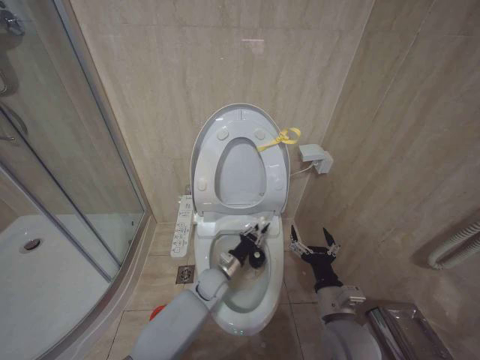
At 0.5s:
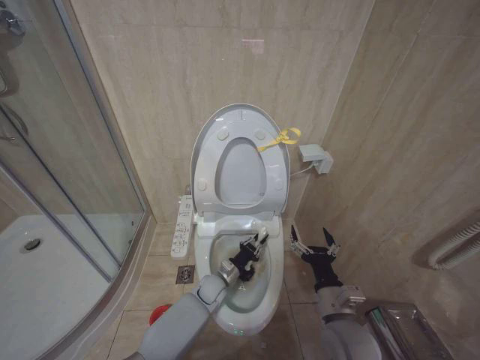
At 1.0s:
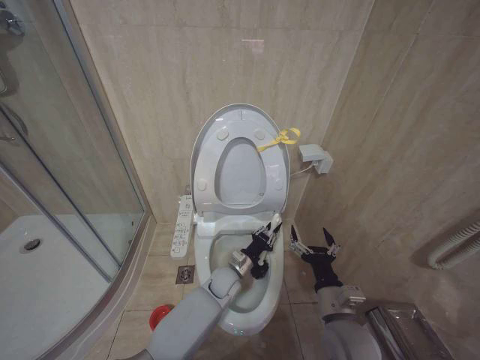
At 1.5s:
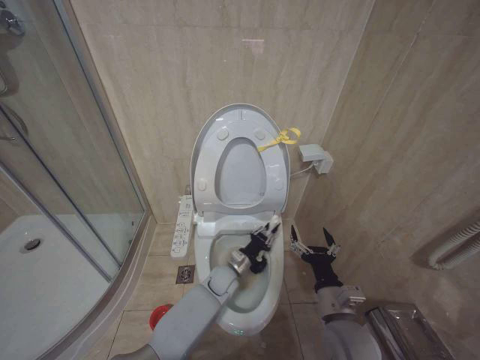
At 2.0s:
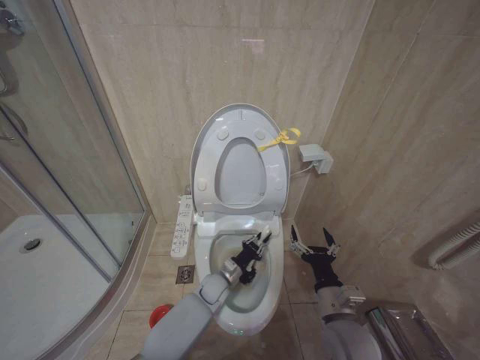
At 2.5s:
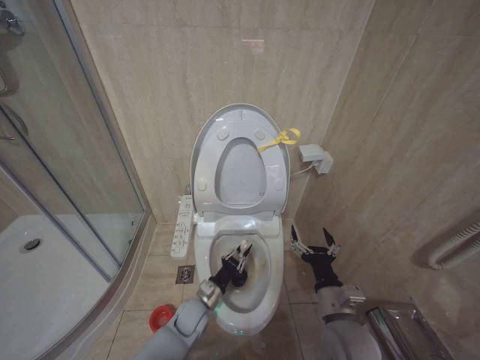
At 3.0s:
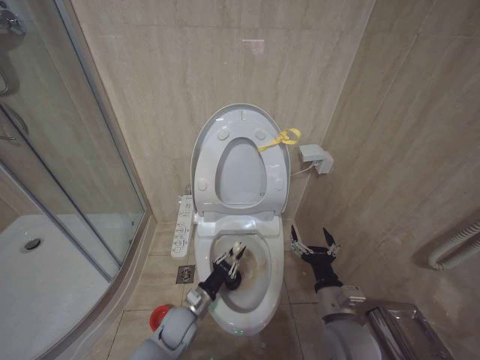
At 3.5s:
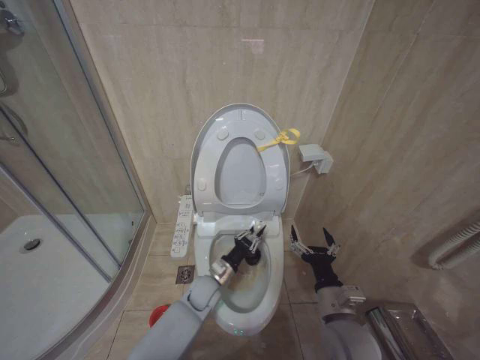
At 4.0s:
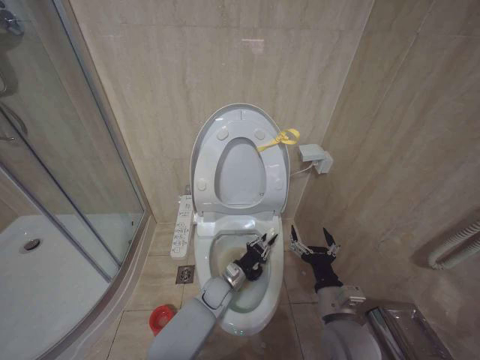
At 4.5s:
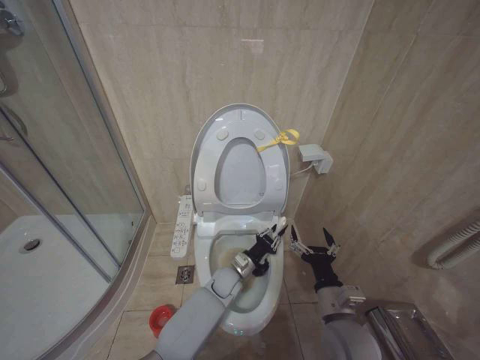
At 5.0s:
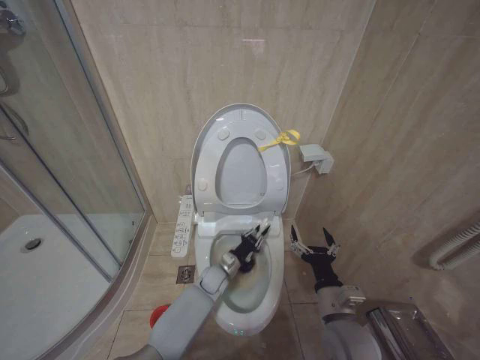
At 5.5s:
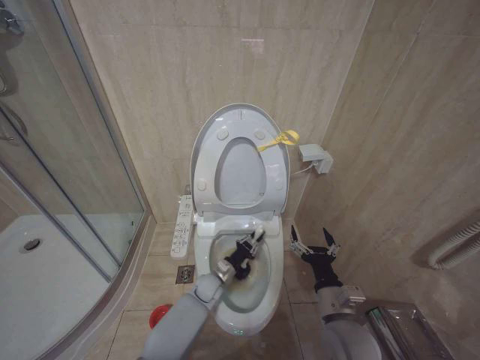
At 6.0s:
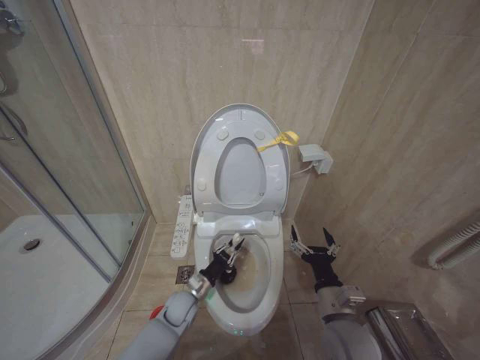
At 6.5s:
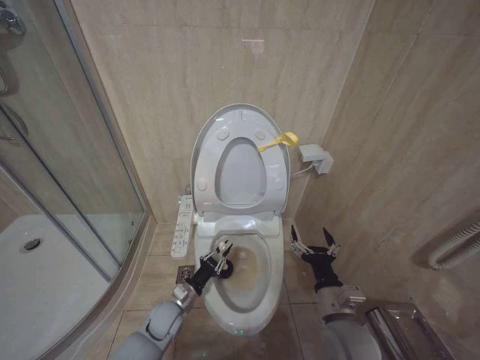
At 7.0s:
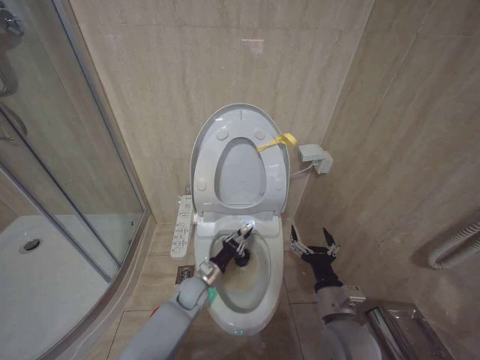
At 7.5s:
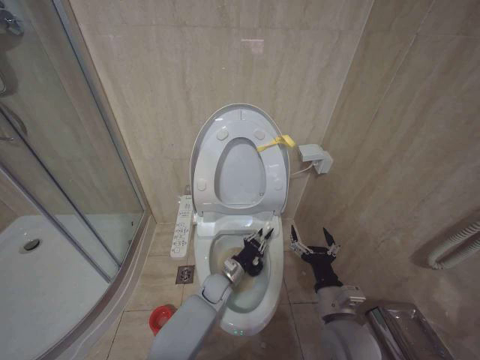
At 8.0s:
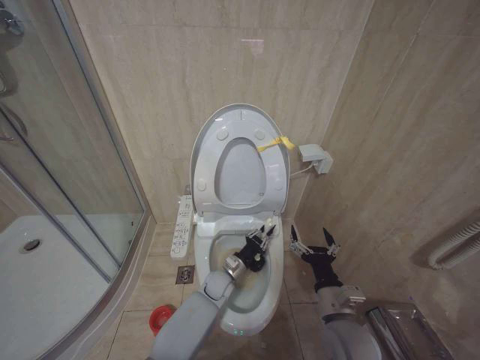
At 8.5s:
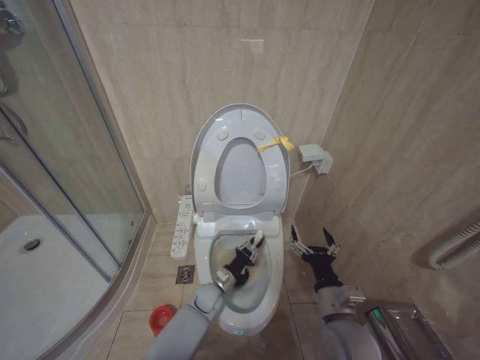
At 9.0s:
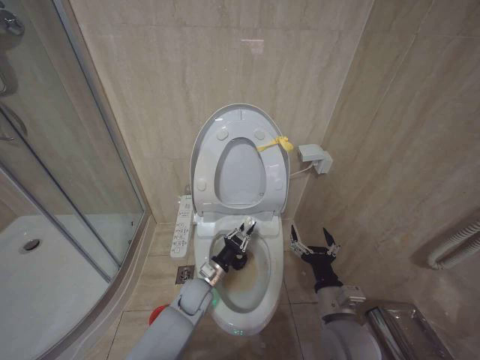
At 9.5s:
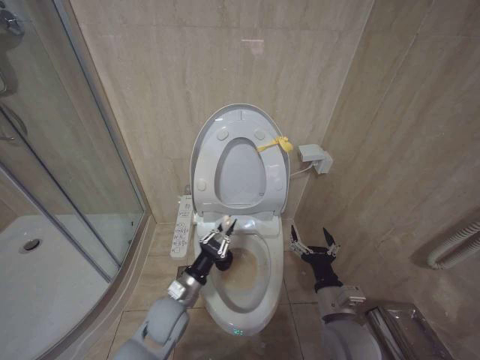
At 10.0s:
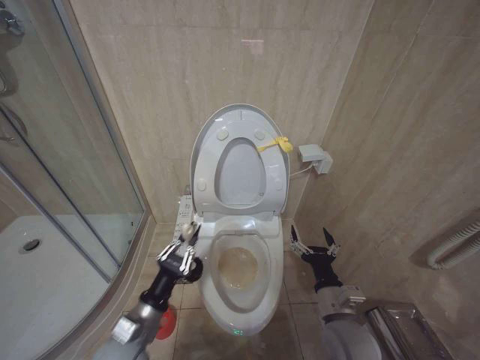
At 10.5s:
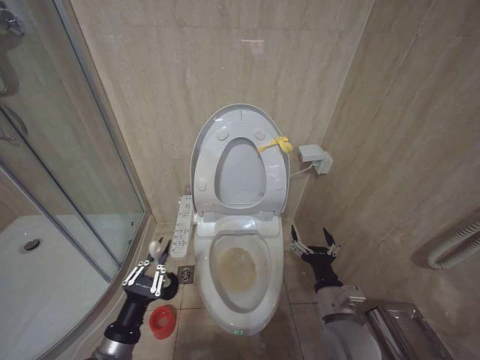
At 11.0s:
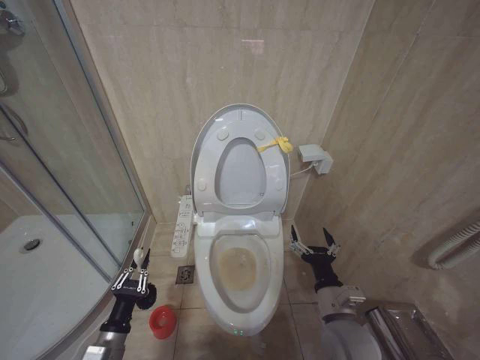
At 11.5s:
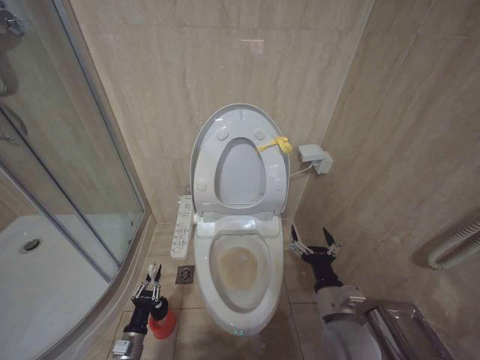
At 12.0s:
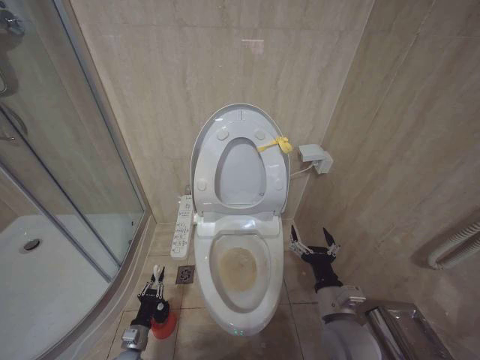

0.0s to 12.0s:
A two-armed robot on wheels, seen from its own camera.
Task of the whole recording: Open the toilet lid, clean the toilet bowl with a toilet brush, close the toilet lid, and flush.
0.0s to 2.0s: The grippers make only small movements.
2.0s to 4.0s: The left gripper goes to the left and returns, approximately 10 cm each way.
4.0s to 6.0s: The left gripper moves to the left, approximately 10 cm.
6.0s to 8.0s: The left gripper shifts about 10 cm to the right.
8.0s to 10.0s: The left gripper goes about 30 cm backward, to the left and upward.
10.0s to 12.0s: The left gripper heads downward, covering some 25 cm.

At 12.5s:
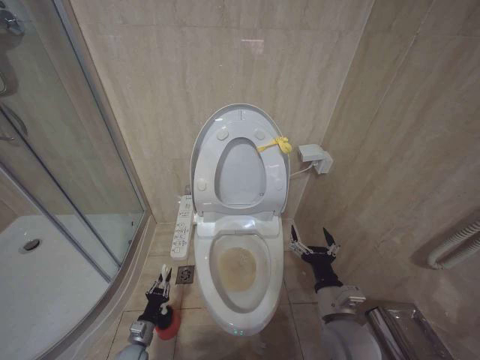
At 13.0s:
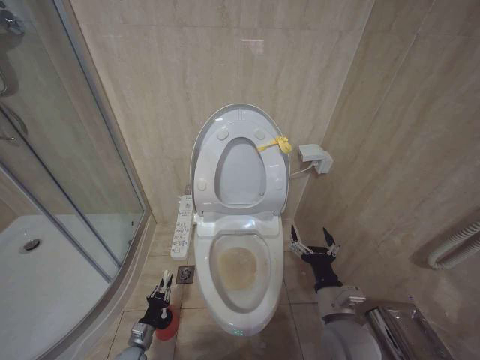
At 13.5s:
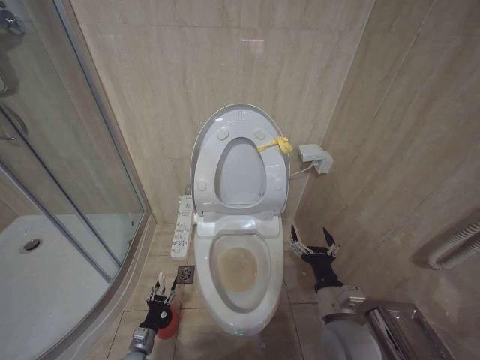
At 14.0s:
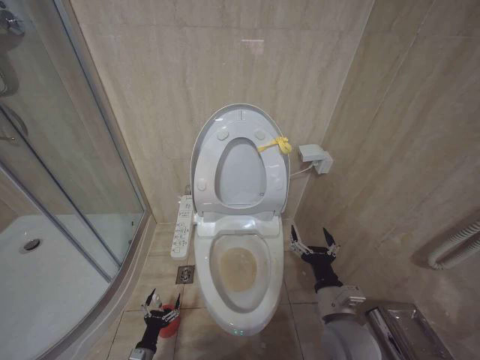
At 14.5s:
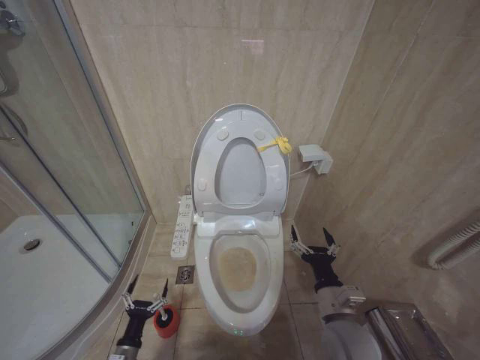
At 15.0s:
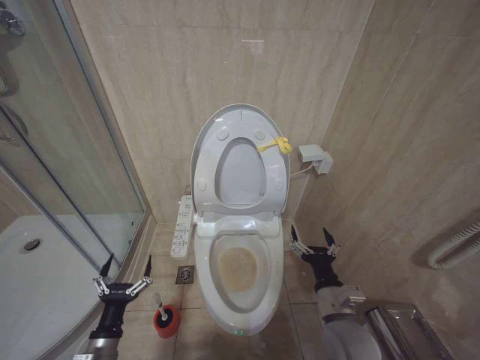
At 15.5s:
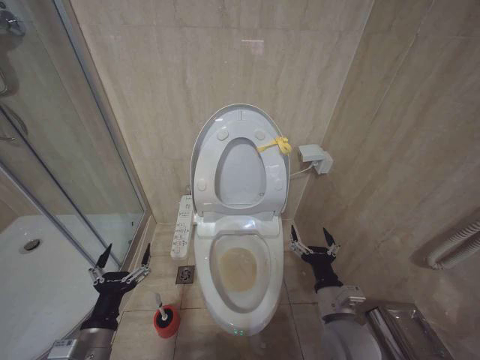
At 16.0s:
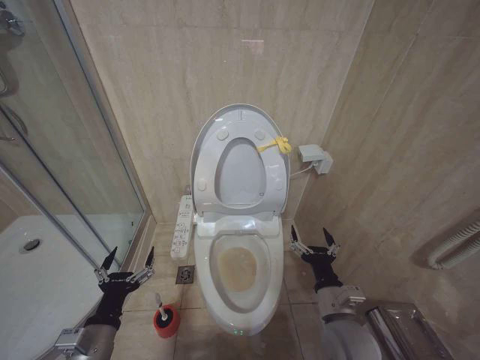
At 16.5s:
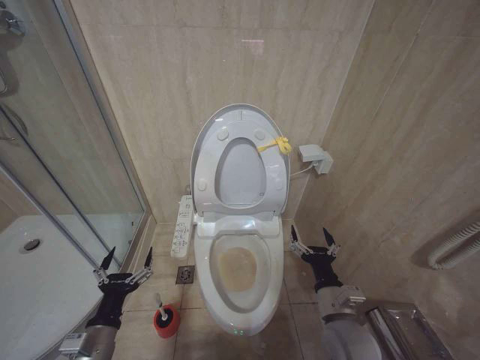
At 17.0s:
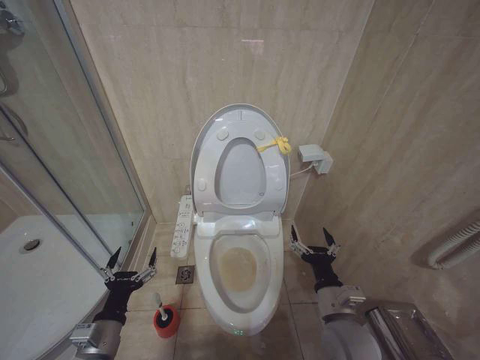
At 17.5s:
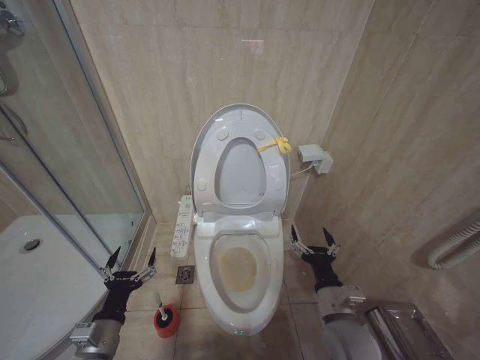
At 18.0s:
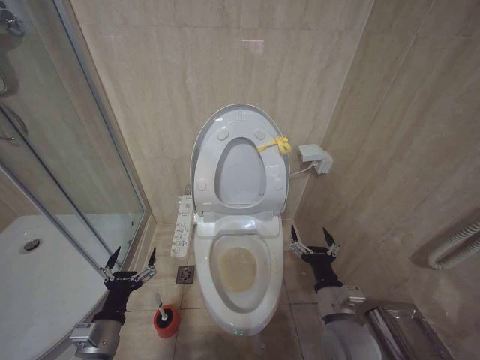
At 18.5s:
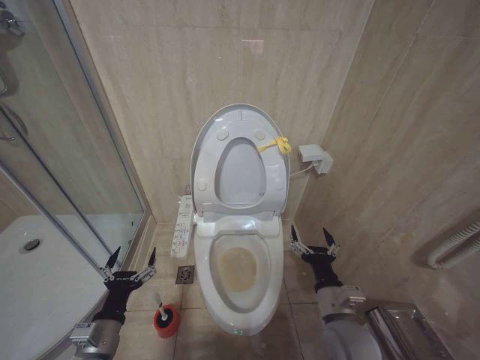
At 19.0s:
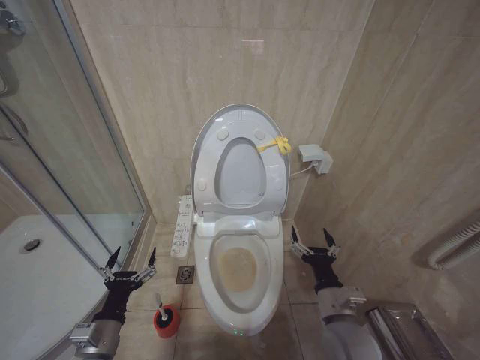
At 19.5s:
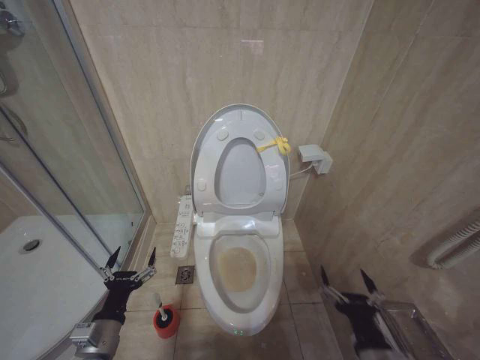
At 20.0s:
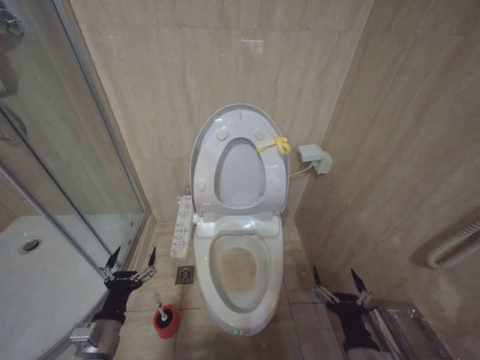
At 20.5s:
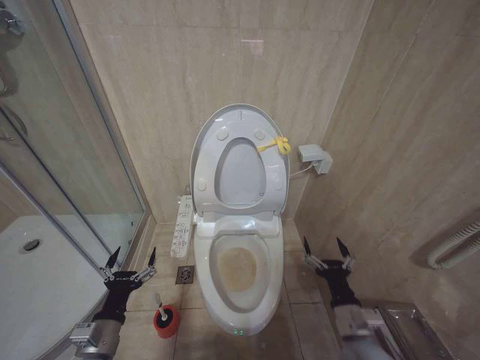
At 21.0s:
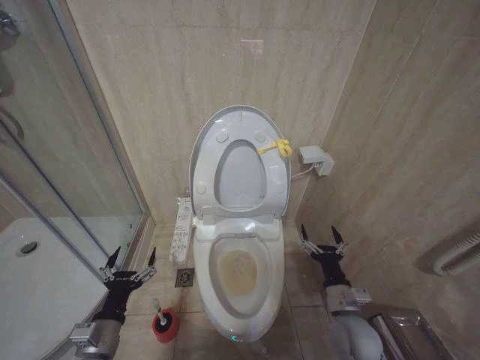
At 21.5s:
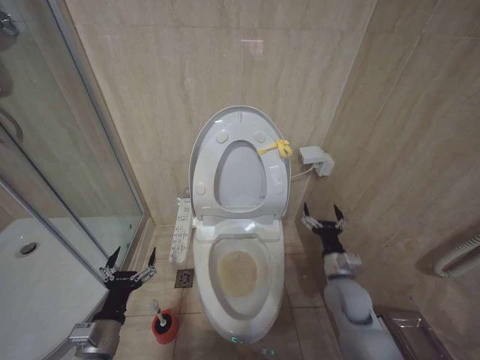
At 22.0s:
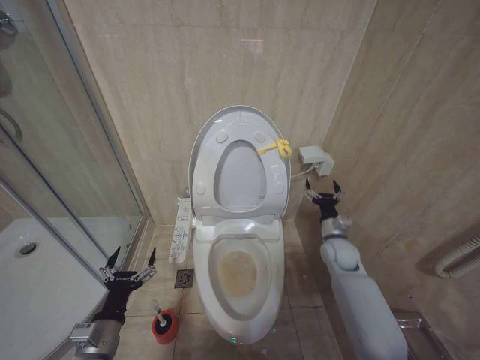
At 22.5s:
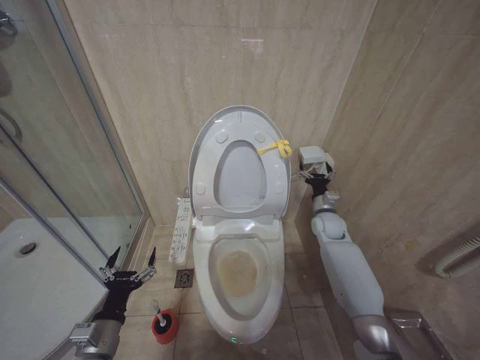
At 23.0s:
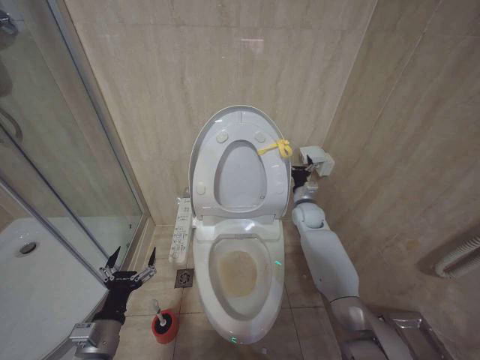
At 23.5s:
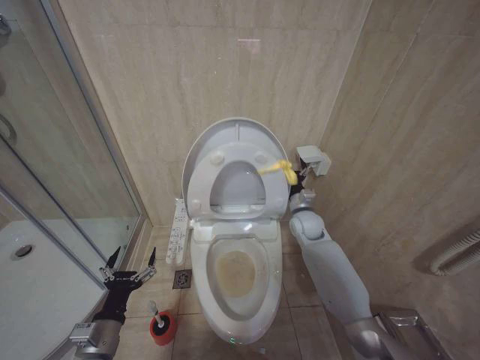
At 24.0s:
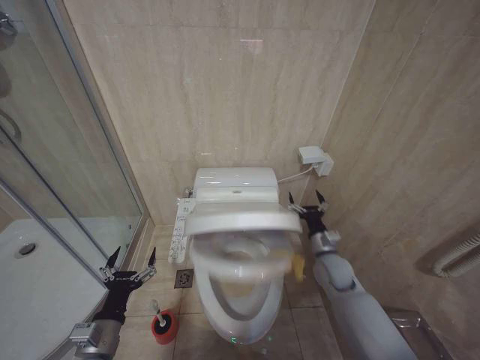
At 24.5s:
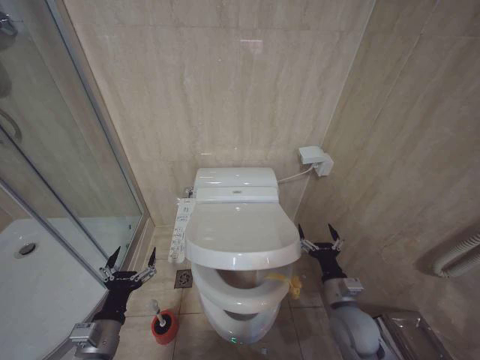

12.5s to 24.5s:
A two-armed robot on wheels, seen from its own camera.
Task of the whole recording: Open the toilet lid, clean the toilet bowl with a toilet brush, close the toilet lid, and flush.
12.5s to 14.5s: The left gripper shifts roughly 10 cm backward and upward, and opens up.
14.5s to 16.5s: The left gripper travels upward by some 20 cm.
16.5s to 18.5s: The grippers stay close to where they were, moving slightly.
20.5s to 22.5s: The right gripper shifts some 35 cm forward.
22.5s to 24.5s: The right gripper is displaced backward by approximately 25 cm.

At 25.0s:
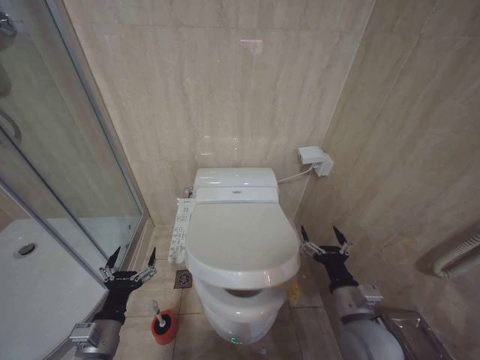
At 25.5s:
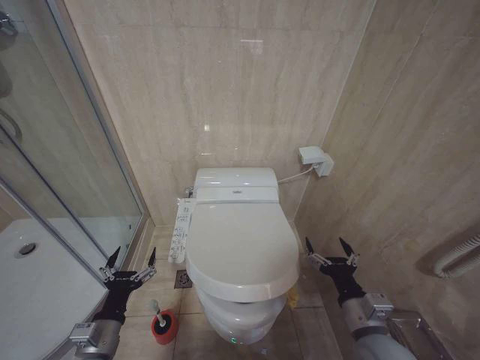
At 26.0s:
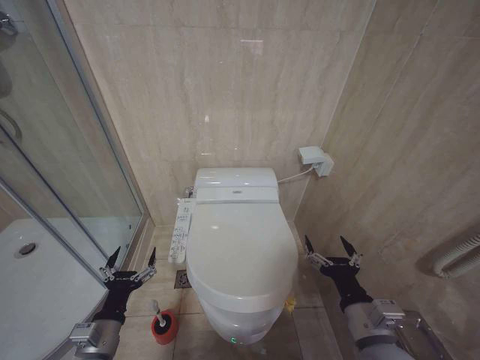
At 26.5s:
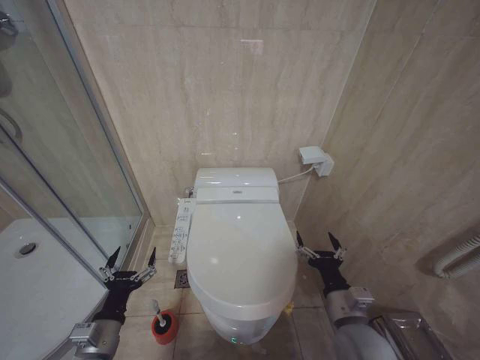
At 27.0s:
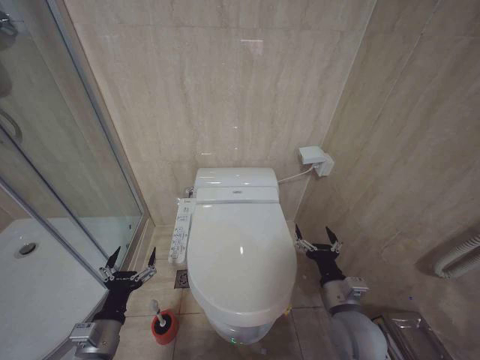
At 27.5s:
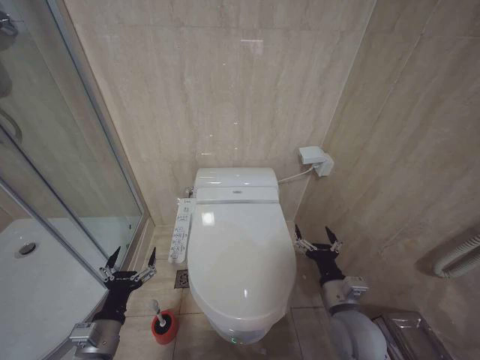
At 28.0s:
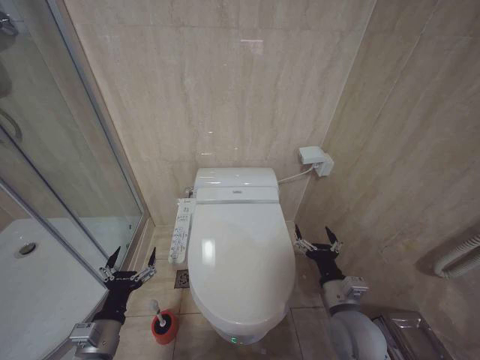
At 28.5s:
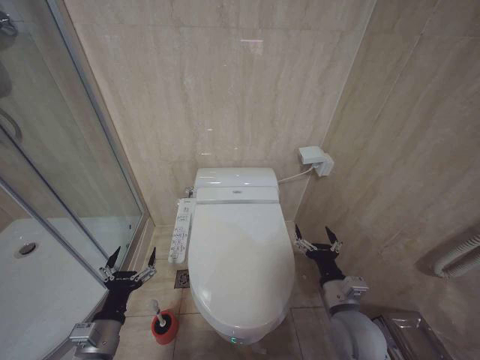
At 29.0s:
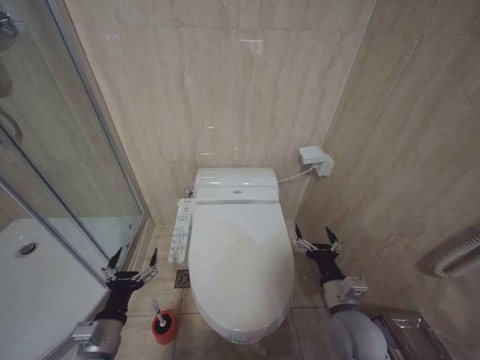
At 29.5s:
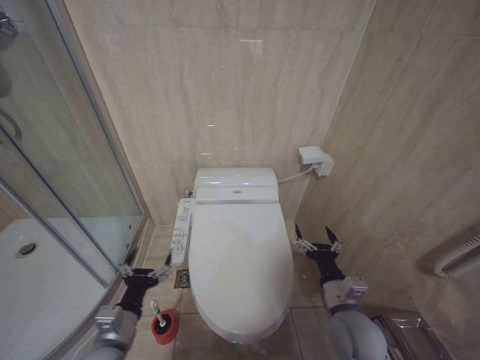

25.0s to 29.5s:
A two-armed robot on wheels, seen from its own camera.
Task of the whole recording: Open the toilet lid, clean the toilet bowl with a toilet brush, close the toilet lid, and flush.
27.0s to 29.5s: The grippers move only a little.
